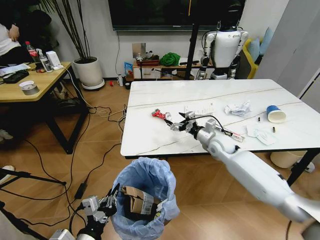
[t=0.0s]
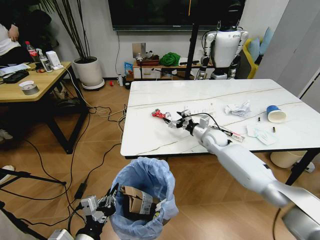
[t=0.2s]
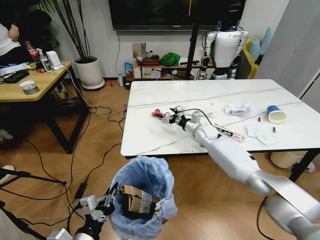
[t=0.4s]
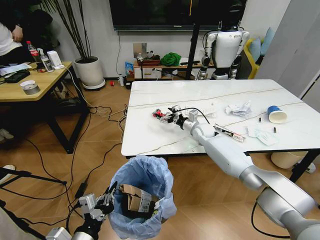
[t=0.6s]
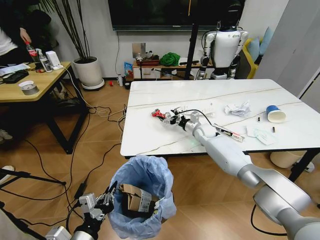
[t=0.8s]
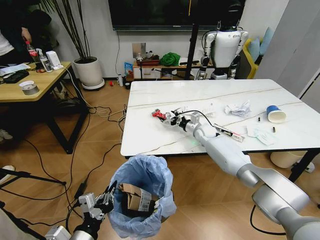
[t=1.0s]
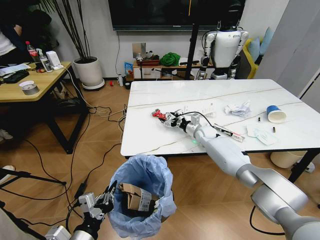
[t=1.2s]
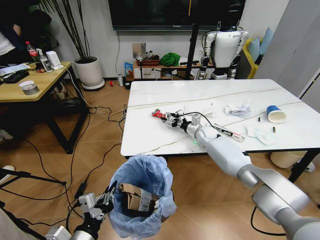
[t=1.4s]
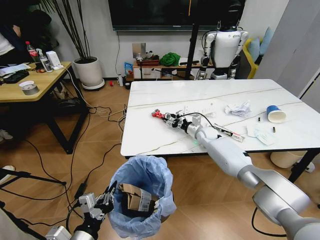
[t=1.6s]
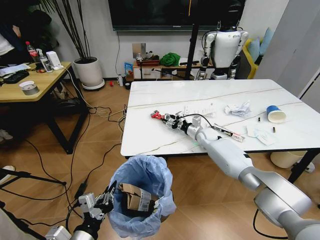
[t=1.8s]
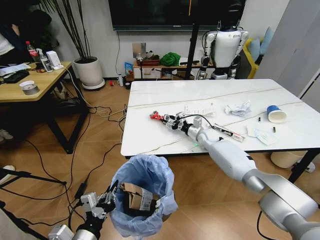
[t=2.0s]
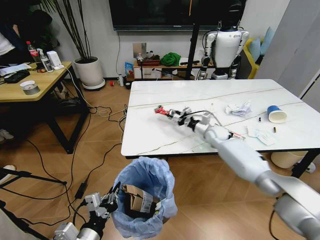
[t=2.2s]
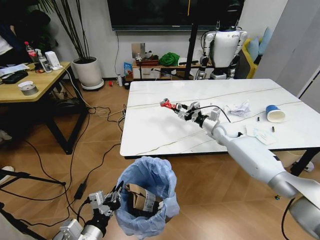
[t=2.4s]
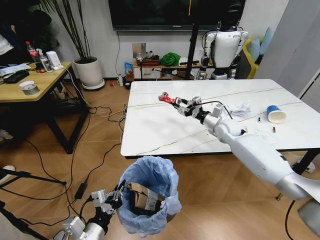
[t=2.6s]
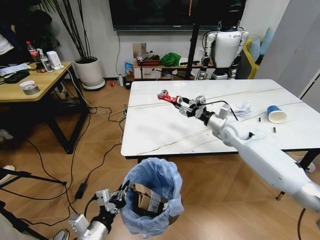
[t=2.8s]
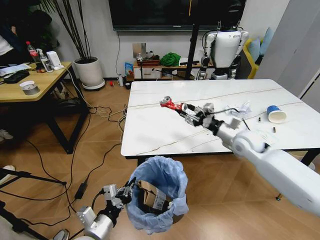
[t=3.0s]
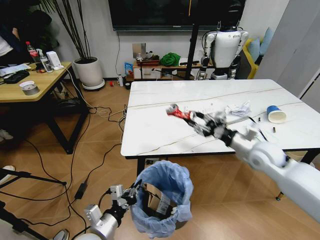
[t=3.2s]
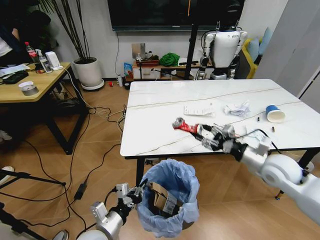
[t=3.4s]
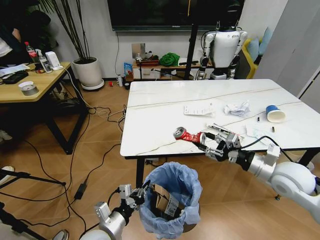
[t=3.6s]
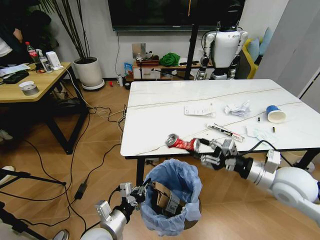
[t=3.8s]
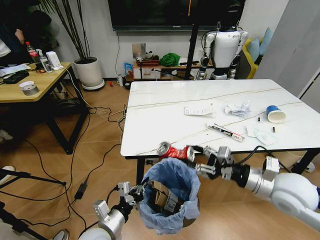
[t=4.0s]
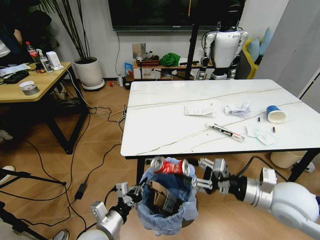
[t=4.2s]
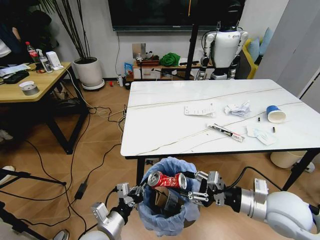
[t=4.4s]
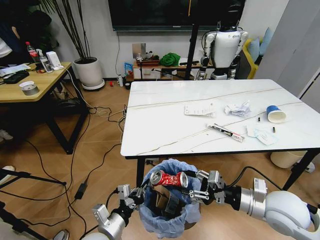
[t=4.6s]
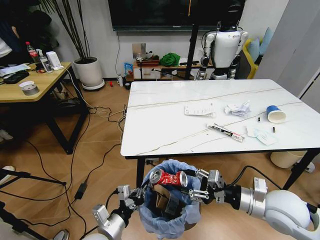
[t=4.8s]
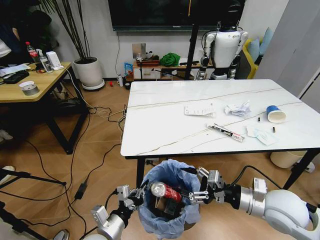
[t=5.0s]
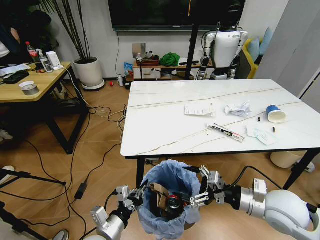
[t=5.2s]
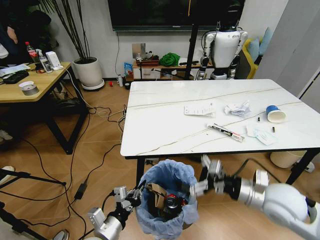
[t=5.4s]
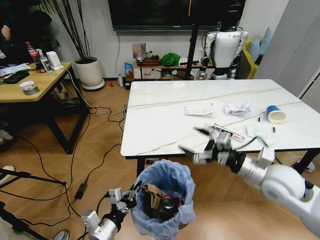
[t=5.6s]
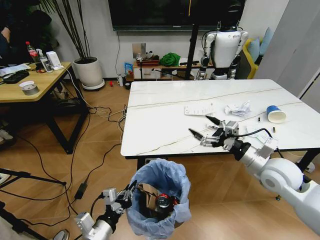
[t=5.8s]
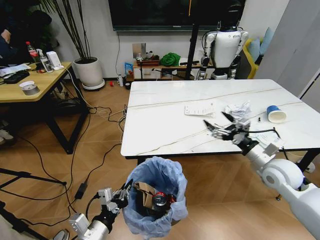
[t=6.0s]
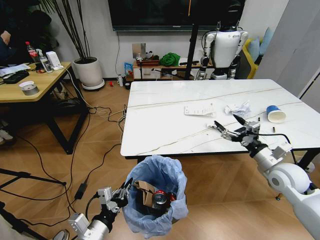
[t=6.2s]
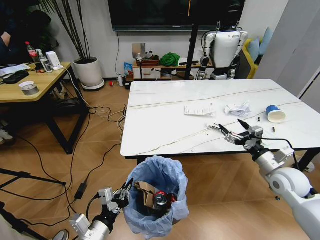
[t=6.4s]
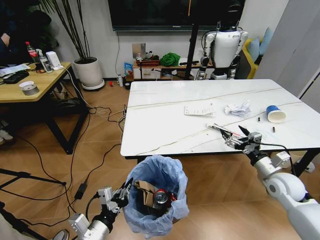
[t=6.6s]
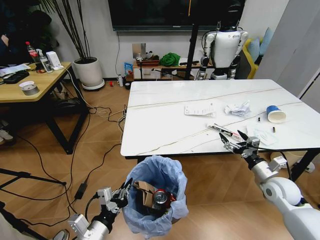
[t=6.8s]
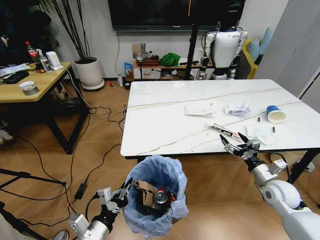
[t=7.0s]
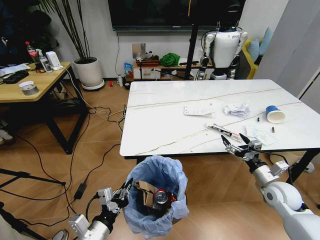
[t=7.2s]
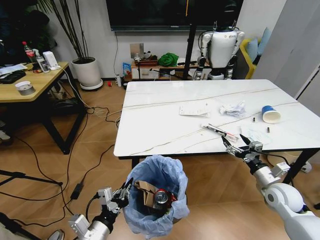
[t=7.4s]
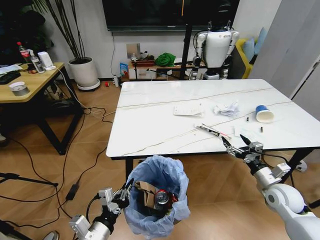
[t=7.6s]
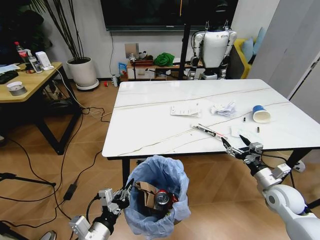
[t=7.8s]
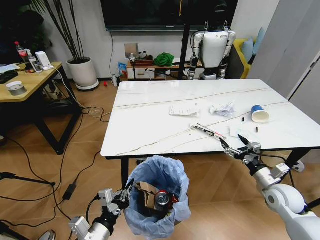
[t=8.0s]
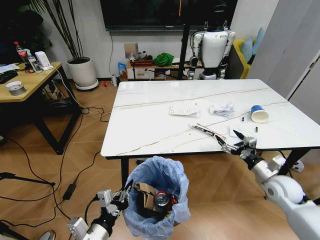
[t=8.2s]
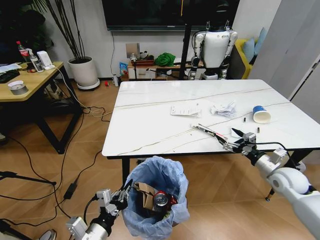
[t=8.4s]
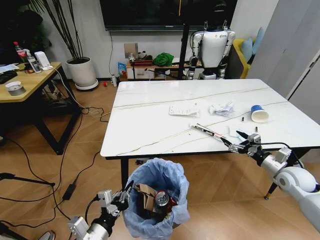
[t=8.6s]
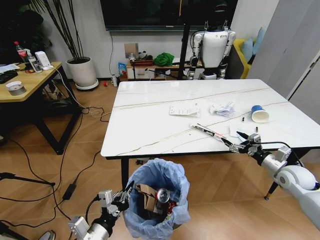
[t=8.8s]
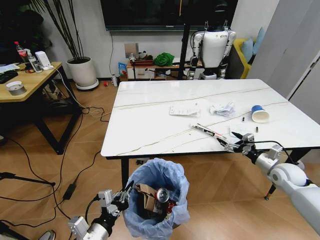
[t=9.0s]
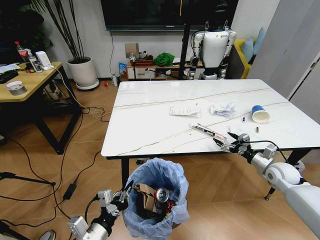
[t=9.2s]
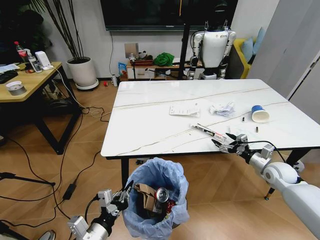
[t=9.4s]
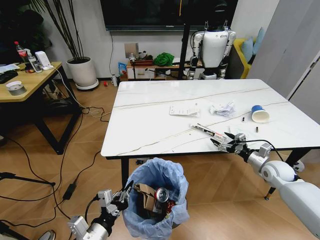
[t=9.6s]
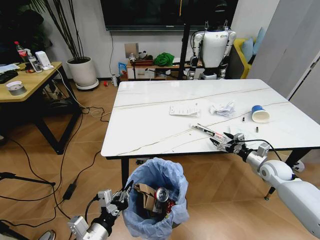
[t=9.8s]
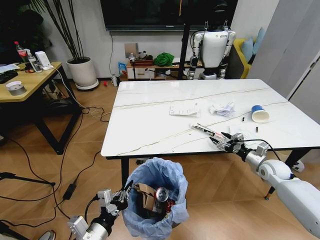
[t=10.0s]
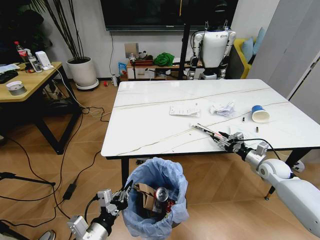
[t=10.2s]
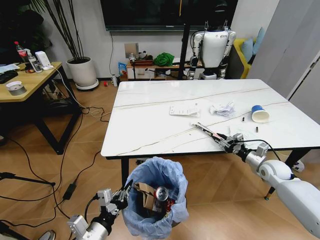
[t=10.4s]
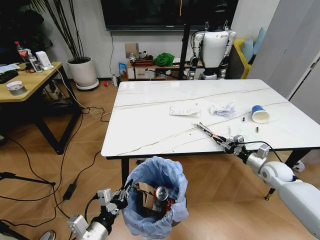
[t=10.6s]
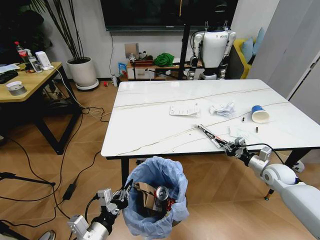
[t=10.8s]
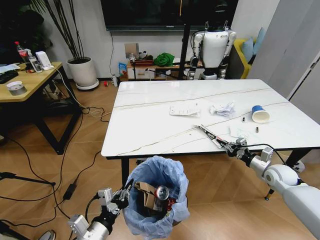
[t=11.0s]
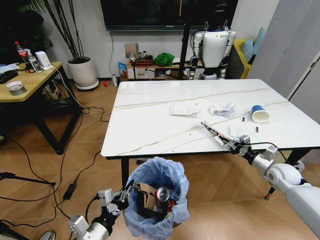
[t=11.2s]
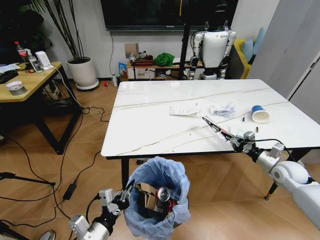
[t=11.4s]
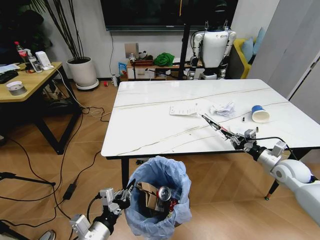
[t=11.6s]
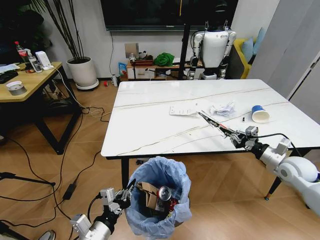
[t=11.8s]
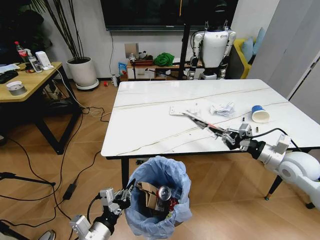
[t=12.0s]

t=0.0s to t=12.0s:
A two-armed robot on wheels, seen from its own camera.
Task of the whole recording: Pick up the trash bin and place the trash from the table into it.
t=0.0s to t=1.6s: The right gripper goes approximately 15 cm forward and downward, and closes.
t=1.6s to t=3.0s: The left gripper shifts by roughly 5 cm; the right gripper shifts roughly 20 cm backward, upward and to the right.
t=3.0s to t=4.4s: The right gripper goes approximately 25 cm backward.
t=4.4s to t=6.0s: The right gripper travels forward by about 10 cm, and opens.
t=6.0s to t=7.6s: The right gripper is displaced downward and to the right by roughly 10 cm.
t=7.6s to t=9.0s: The right gripper heads forward and to the right, covering roughly 10 cm.
t=9.0s to t=10.4s: The right gripper closes up.
t=10.4s to t=12.0s: The right gripper shifts some 15 cm upward and backward, and closes up.

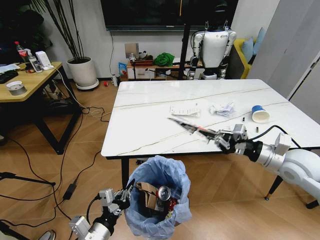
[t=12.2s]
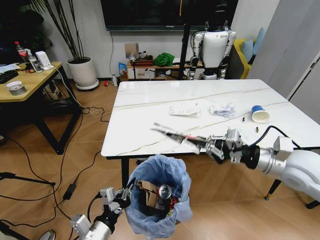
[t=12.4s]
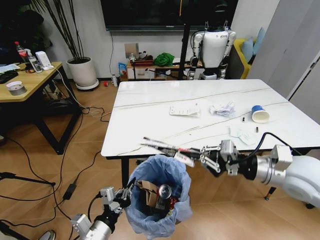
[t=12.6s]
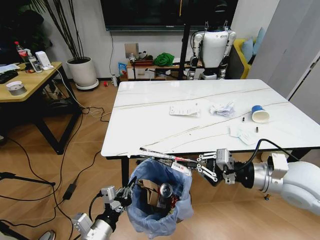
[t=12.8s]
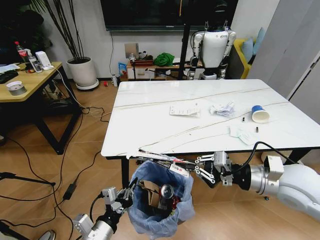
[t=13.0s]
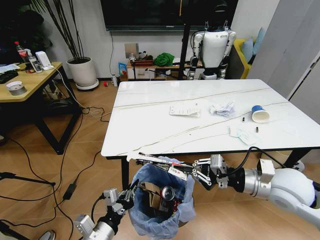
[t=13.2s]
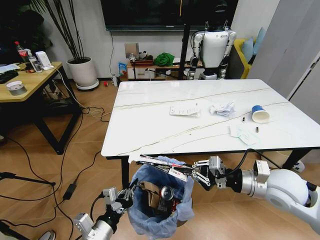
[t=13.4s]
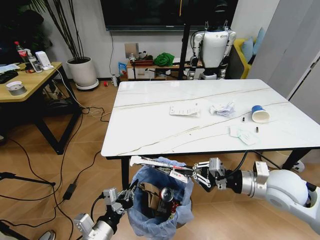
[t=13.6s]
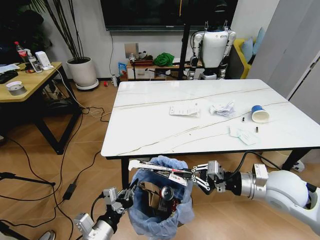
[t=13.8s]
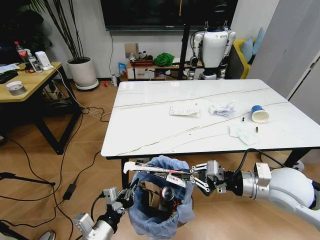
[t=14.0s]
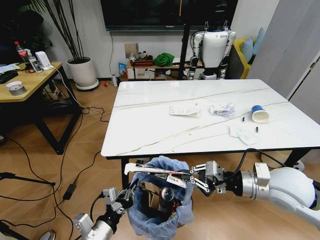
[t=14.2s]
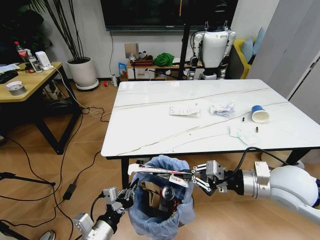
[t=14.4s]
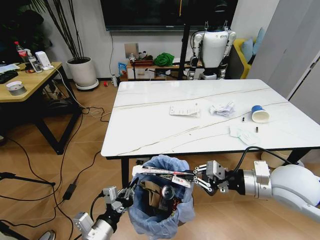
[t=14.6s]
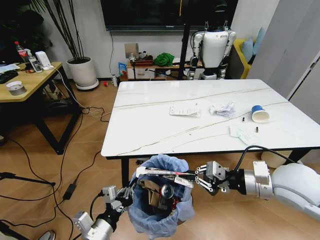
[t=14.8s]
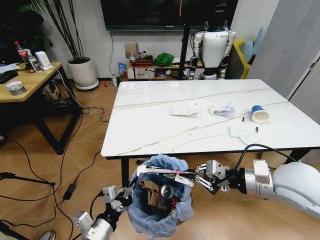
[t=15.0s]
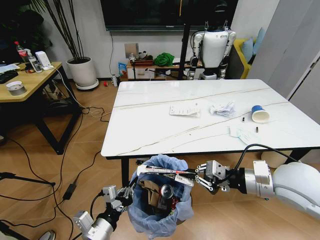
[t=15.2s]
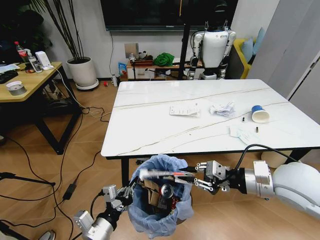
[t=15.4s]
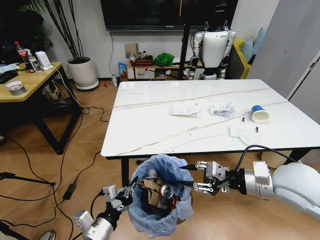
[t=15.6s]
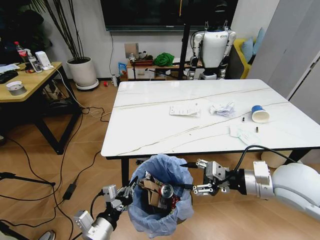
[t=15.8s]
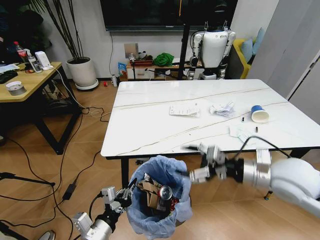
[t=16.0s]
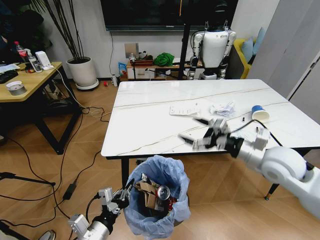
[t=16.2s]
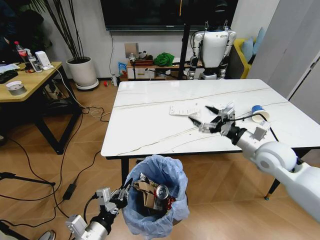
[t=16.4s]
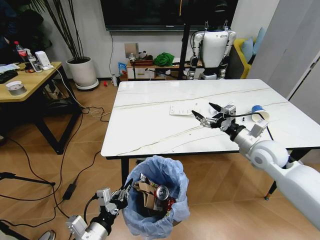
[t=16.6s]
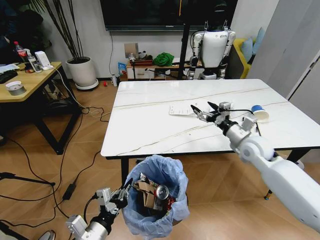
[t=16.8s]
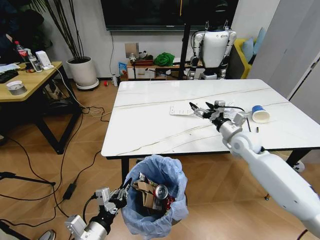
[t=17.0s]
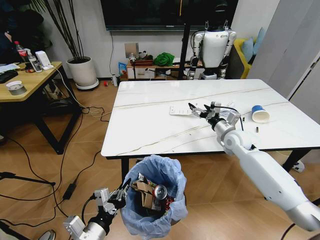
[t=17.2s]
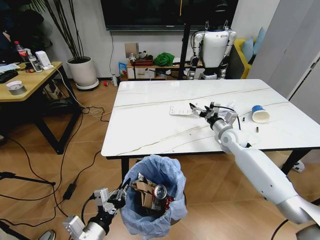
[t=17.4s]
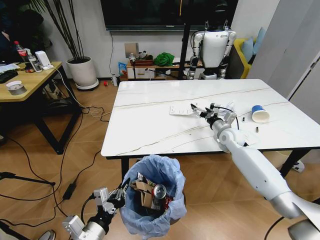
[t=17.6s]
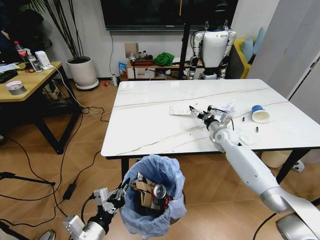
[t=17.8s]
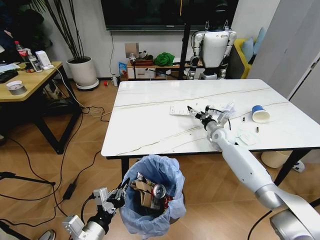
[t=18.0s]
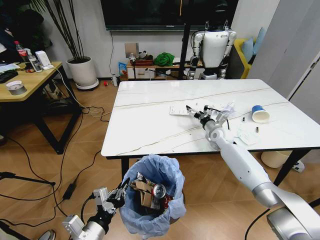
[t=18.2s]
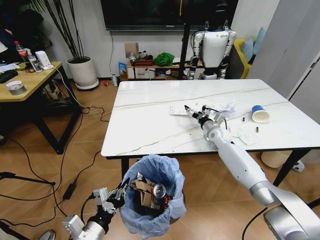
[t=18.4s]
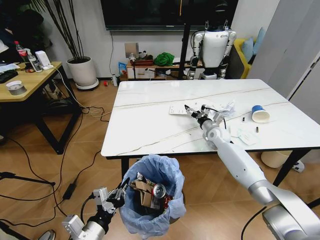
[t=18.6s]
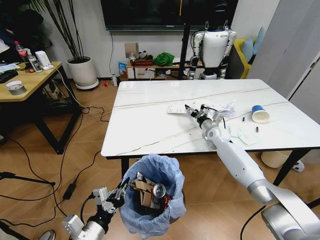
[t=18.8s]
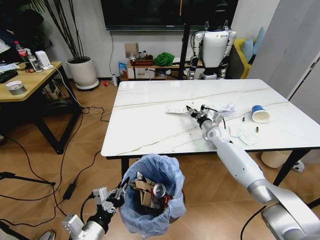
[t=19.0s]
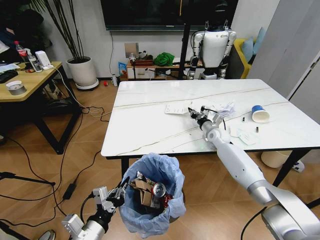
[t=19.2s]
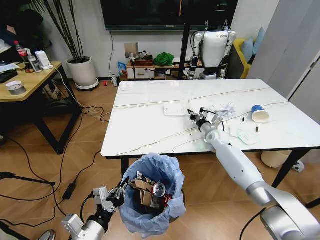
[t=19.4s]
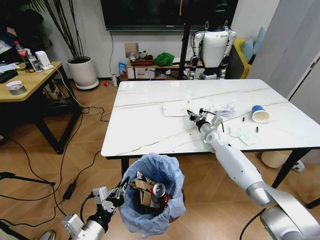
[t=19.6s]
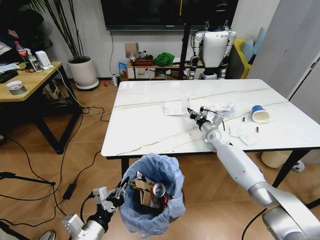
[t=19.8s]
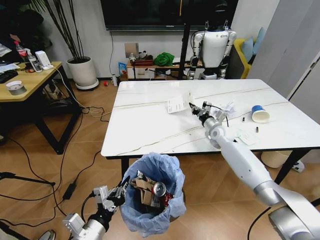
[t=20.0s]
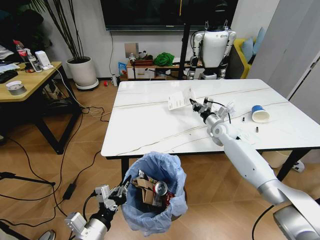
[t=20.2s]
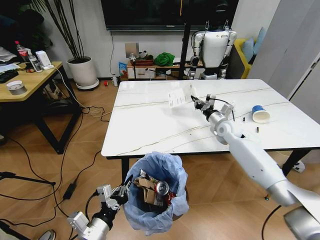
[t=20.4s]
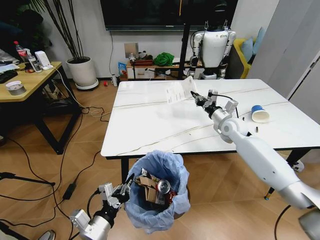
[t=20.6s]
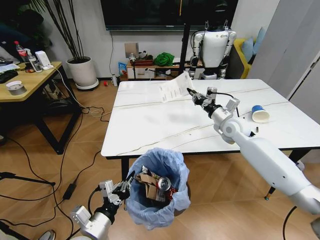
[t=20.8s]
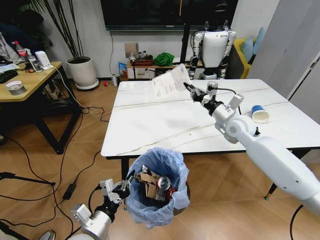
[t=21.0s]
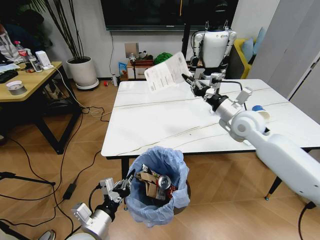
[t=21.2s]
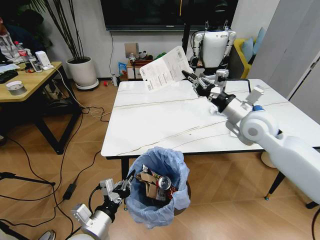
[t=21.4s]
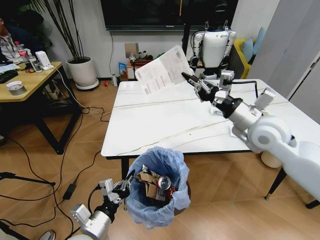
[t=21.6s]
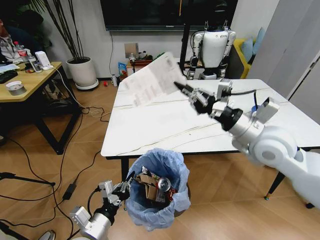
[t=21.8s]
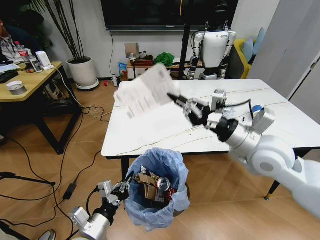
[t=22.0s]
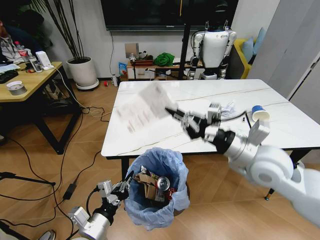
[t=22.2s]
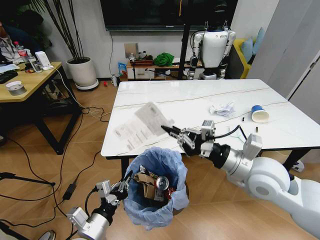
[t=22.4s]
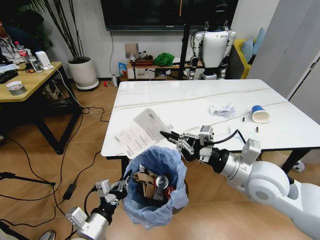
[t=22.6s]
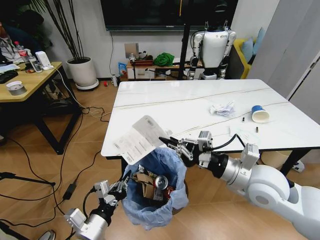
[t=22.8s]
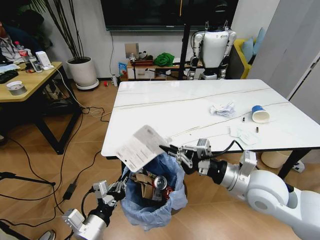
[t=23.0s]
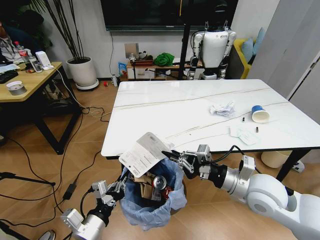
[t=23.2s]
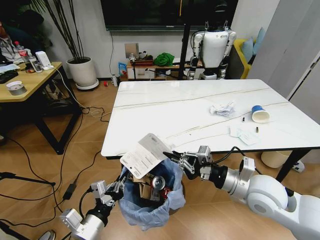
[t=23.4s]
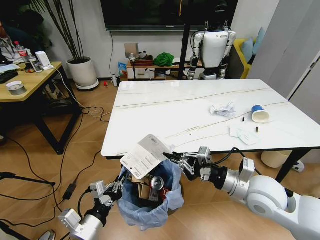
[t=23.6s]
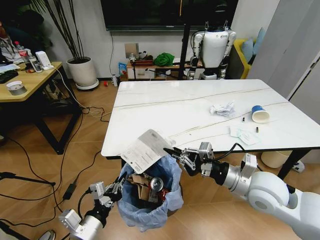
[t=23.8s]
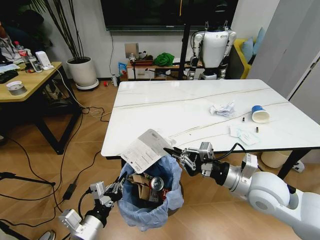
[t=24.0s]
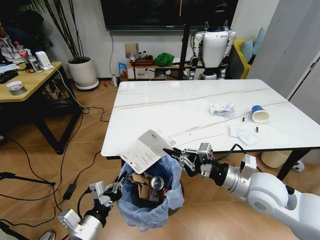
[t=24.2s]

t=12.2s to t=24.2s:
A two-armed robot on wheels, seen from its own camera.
Task of the whole recording: Pick up the trash bin and place the trash from the table into it.
t=12.2s to t=13.8s: The right gripper goes roughly 10 cm to the left and backward.
t=13.8s to t=15.2s: The right gripper goes about 5 cm upward.
t=15.2s to t=16.6s: The right gripper moves forward and downward, about 15 cm, and opens up.
t=16.6s to t=18.2s: The right gripper moves forward and downward, approximately 20 cm.
t=18.2s to t=19.8s: The right gripper closes.
t=19.8s to t=21.2s: The right gripper goes approximately 20 cm upward and backward.
t=21.2s to t=22.6s: The right gripper shifts approximately 20 cm backward.
t=22.6s to t=24.2s: The grippers stay close to where they were, moving slightly.
